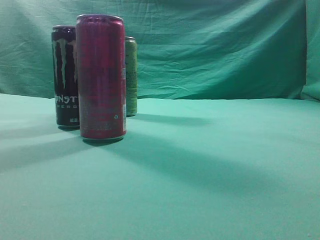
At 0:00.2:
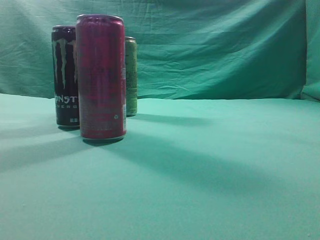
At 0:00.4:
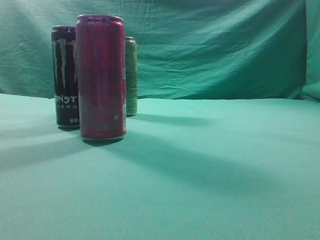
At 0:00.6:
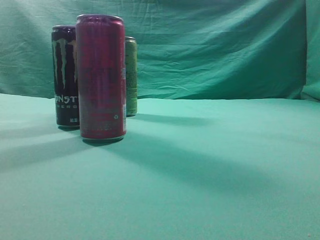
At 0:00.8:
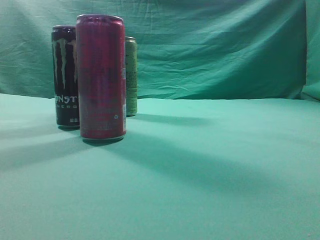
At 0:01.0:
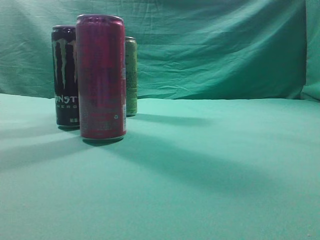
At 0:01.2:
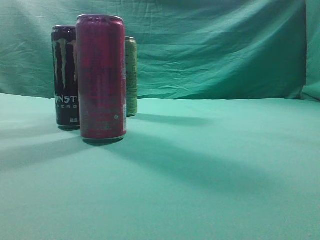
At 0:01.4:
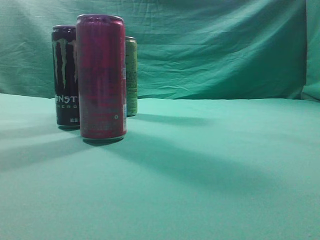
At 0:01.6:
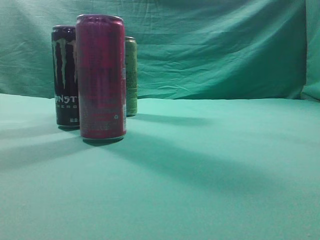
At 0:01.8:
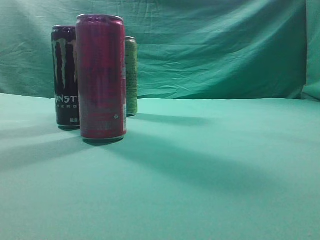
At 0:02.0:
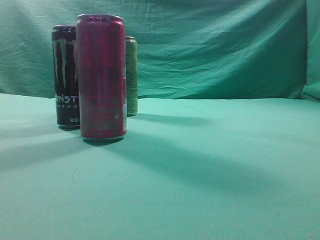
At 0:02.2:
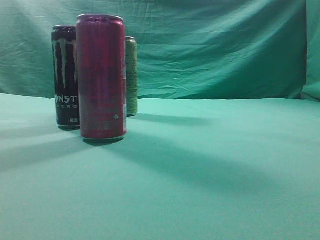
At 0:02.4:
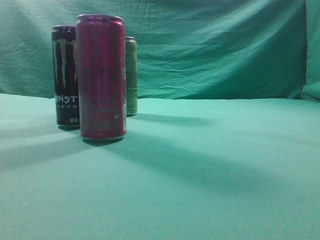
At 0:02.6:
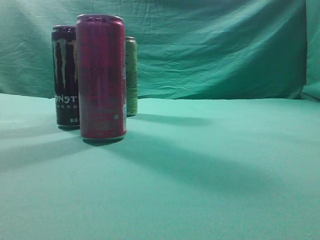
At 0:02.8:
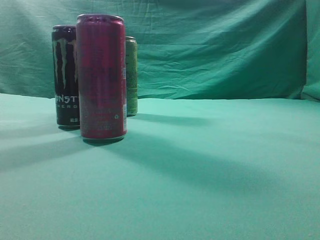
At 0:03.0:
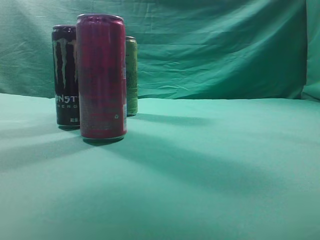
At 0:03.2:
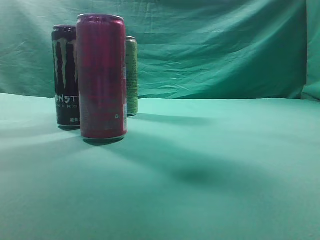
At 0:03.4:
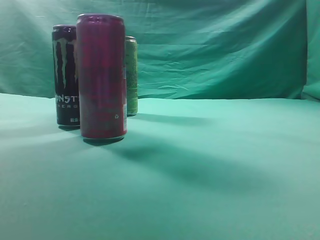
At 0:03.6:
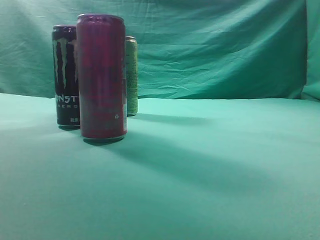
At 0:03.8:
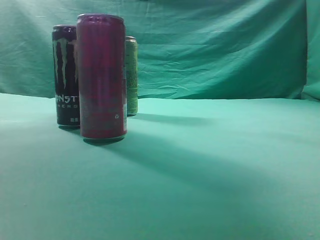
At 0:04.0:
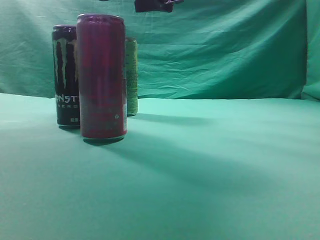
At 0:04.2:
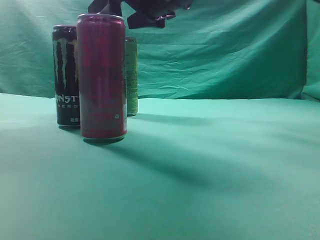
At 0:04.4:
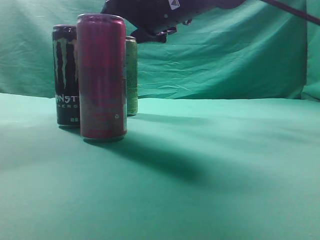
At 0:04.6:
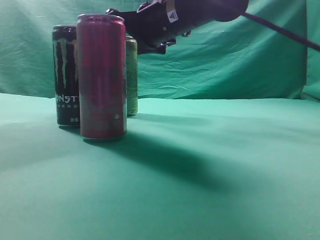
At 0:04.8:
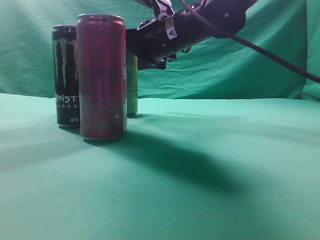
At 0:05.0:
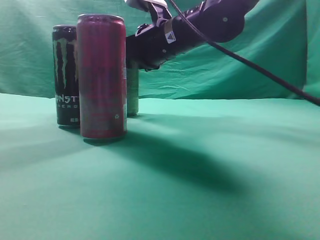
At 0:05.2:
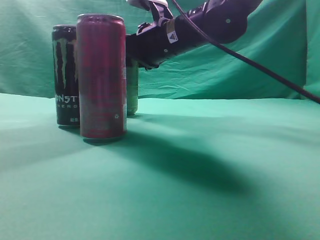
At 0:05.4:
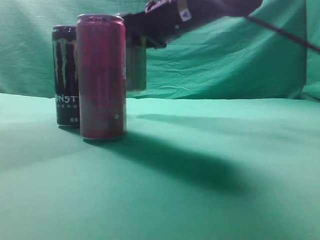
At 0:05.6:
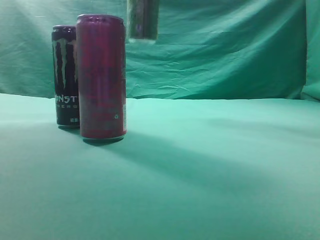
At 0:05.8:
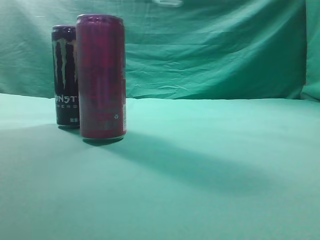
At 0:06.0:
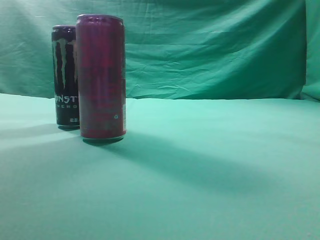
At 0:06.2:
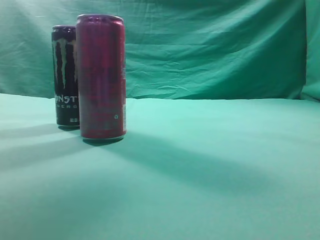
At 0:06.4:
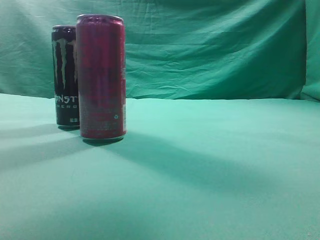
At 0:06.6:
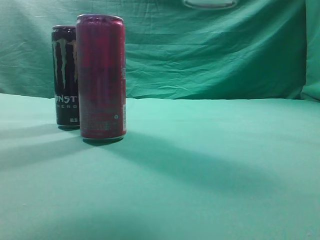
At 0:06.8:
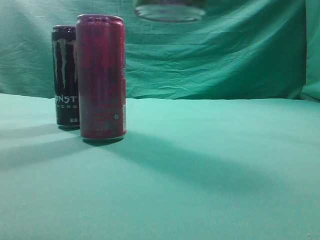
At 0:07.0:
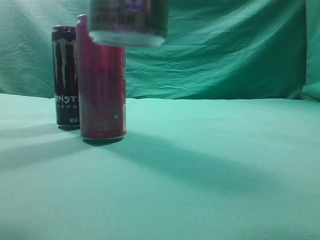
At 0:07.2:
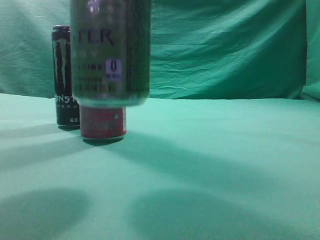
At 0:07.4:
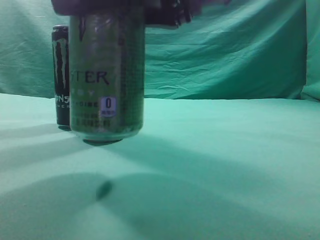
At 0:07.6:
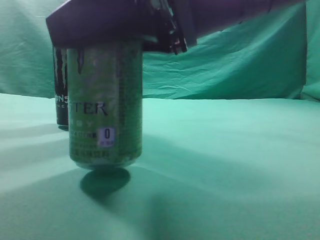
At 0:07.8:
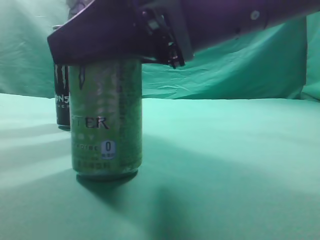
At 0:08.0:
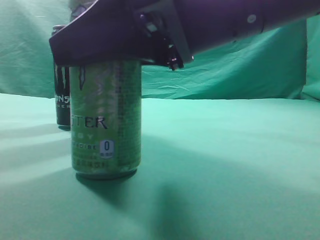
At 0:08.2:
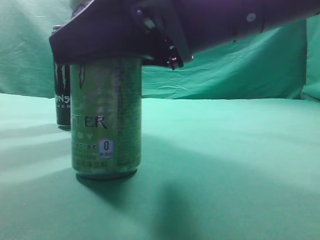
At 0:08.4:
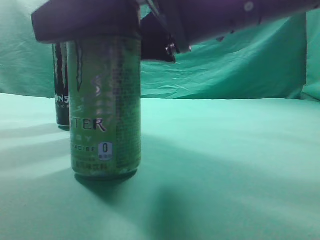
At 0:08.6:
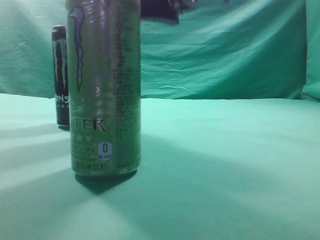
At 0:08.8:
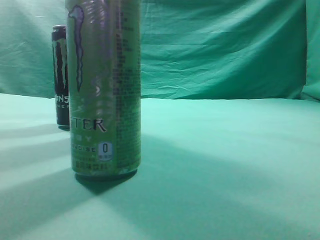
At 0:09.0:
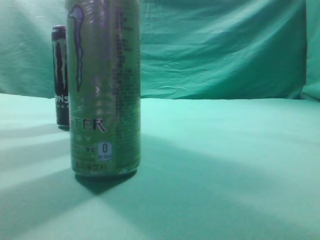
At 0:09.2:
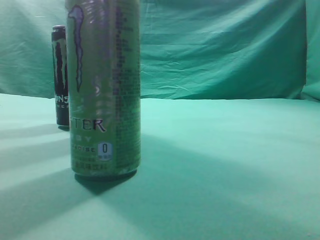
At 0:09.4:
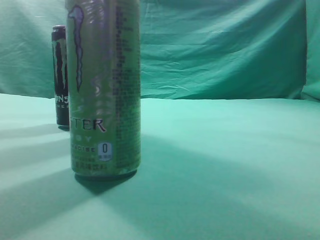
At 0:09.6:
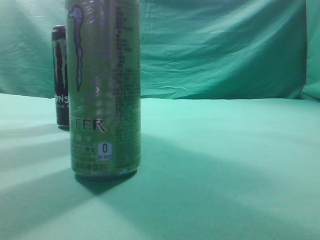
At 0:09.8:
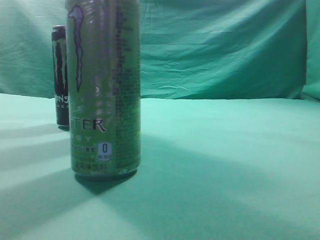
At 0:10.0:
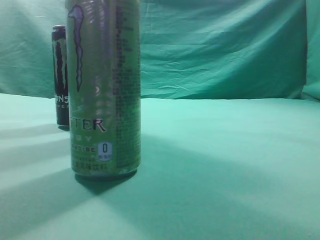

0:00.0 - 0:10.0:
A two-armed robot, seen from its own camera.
Task of the whole recording: move one drink among three beverages.
Step, 0:00.0 - 0:05.4: Grasp the beverage bottle placed at the back of the desk.
Step, 0:05.6 - 0:09.0: Place the beverage bottle to the front of the table.
0:02.8 - 0:04.2: The right gripper travels forward and to the left by about 30 cm, and opens up.
0:04.2 - 0:05.8: The right gripper heads upward and to the right, covering approximately 15 cm, and closes its fingers.
0:05.8 - 0:07.2: The right gripper shifts some 25 cm backward and downward.
0:07.2 - 0:08.6: The right gripper opens up.
0:08.6 - 0:10.0: The right gripper moves upward, to the right and backward, approximately 20 cm, and closes up.
